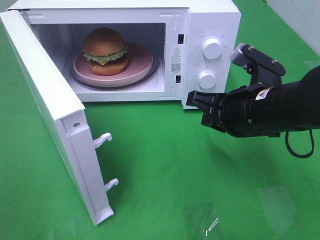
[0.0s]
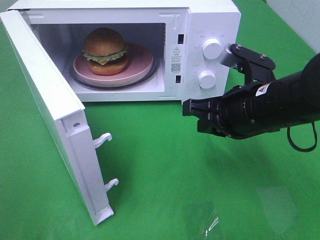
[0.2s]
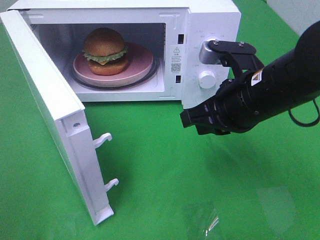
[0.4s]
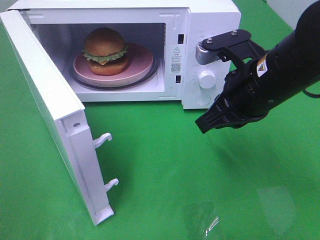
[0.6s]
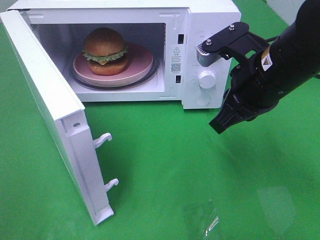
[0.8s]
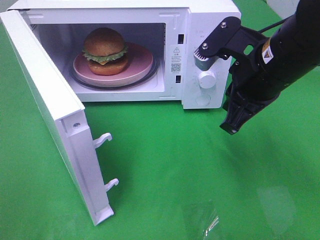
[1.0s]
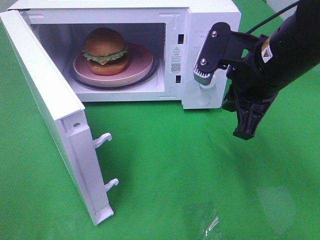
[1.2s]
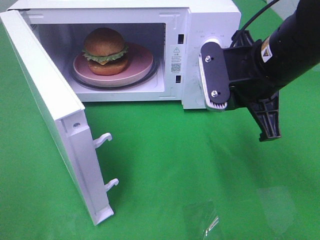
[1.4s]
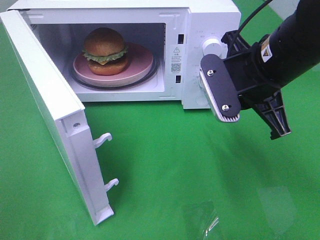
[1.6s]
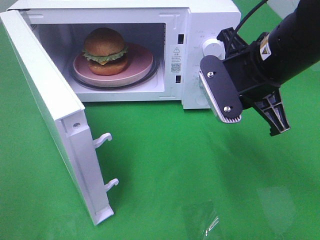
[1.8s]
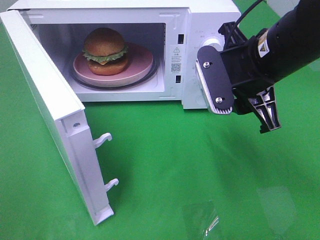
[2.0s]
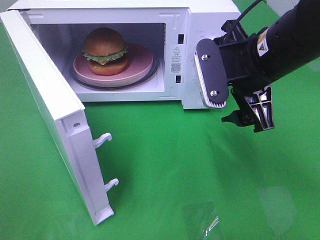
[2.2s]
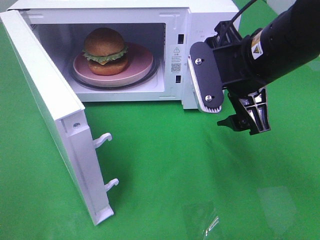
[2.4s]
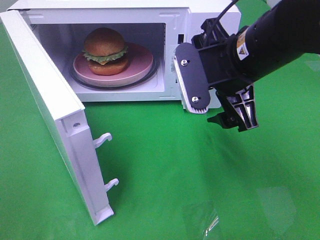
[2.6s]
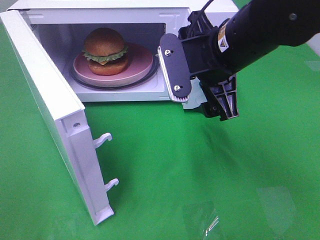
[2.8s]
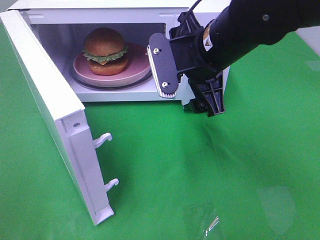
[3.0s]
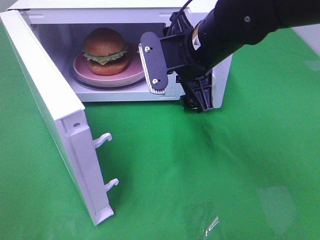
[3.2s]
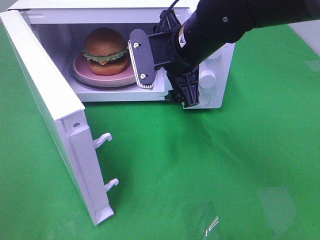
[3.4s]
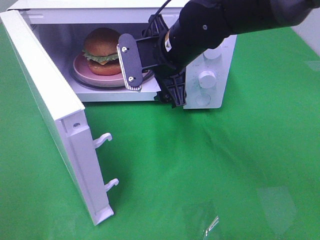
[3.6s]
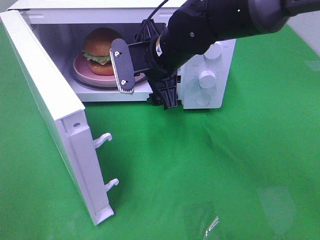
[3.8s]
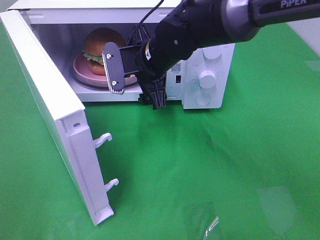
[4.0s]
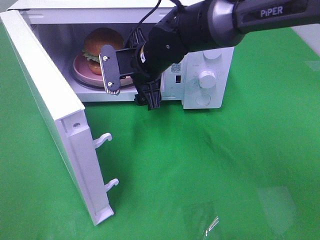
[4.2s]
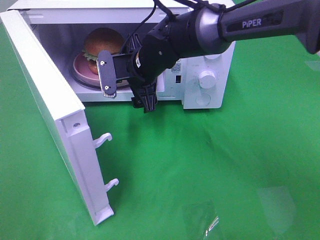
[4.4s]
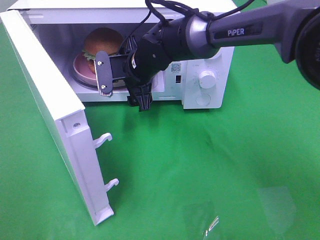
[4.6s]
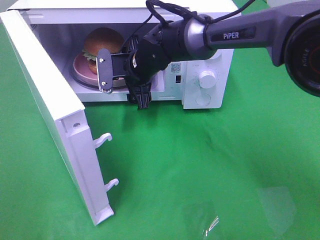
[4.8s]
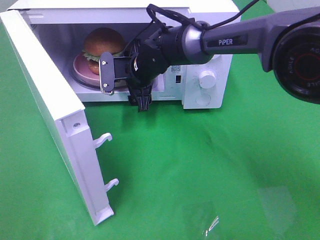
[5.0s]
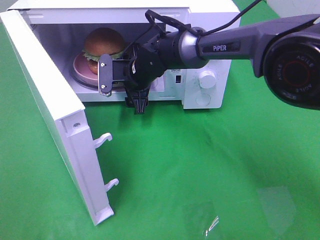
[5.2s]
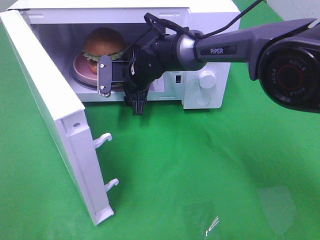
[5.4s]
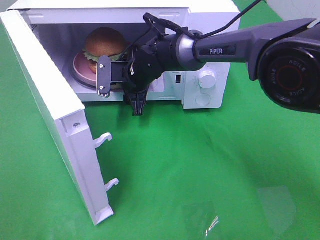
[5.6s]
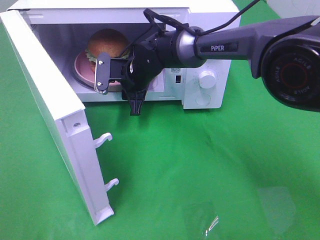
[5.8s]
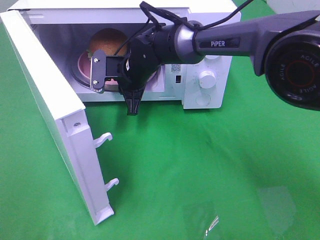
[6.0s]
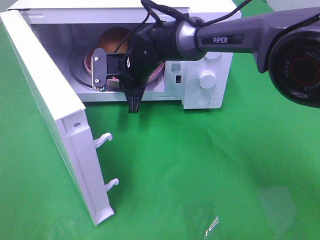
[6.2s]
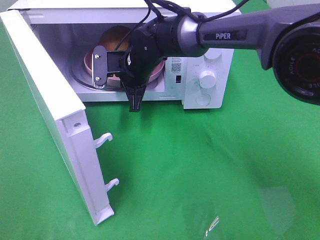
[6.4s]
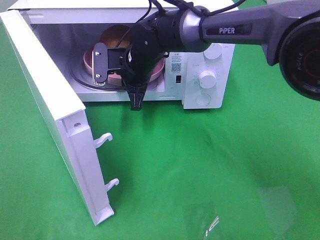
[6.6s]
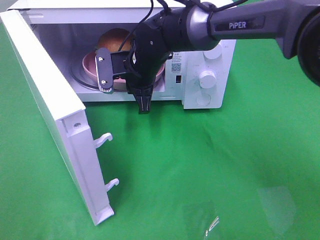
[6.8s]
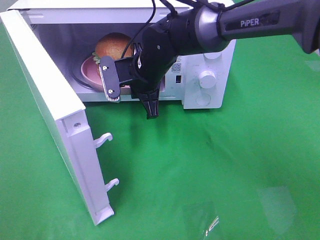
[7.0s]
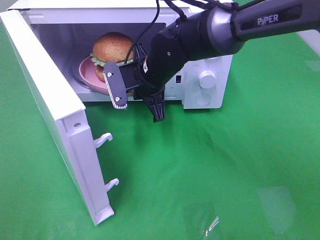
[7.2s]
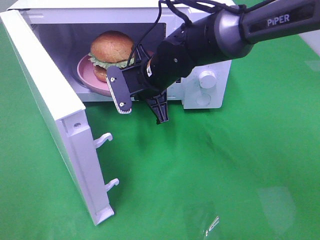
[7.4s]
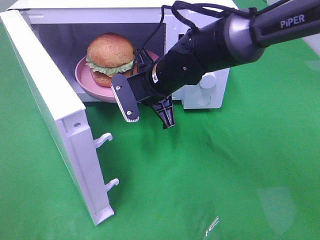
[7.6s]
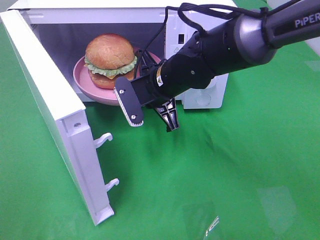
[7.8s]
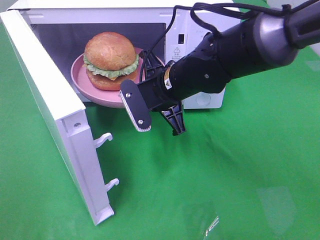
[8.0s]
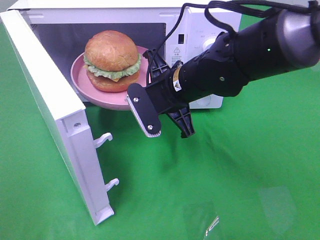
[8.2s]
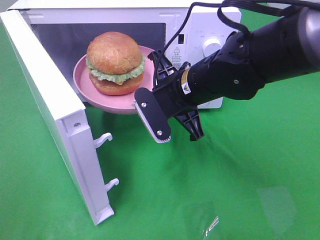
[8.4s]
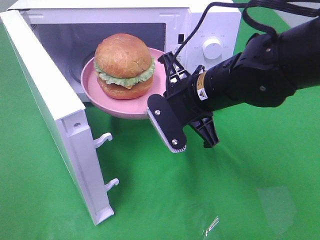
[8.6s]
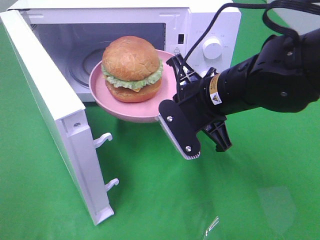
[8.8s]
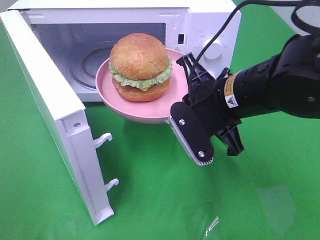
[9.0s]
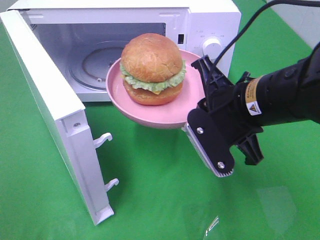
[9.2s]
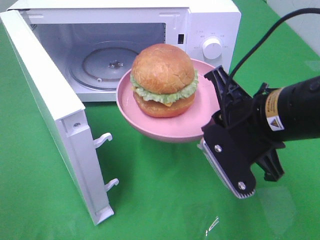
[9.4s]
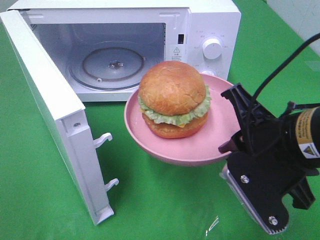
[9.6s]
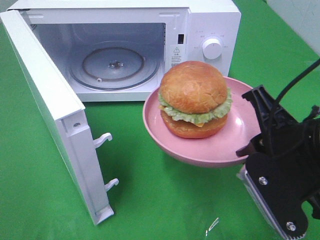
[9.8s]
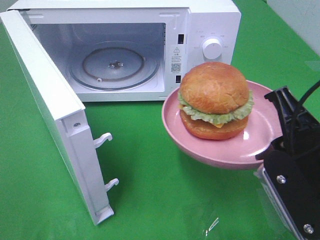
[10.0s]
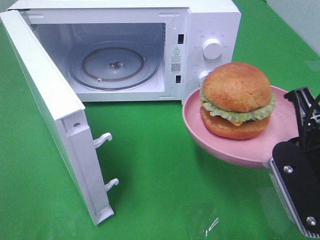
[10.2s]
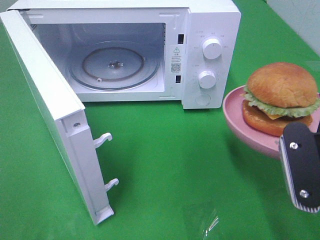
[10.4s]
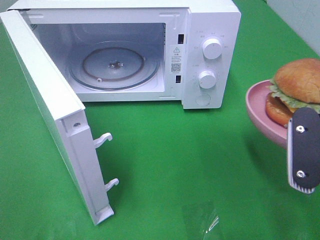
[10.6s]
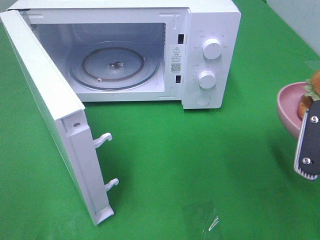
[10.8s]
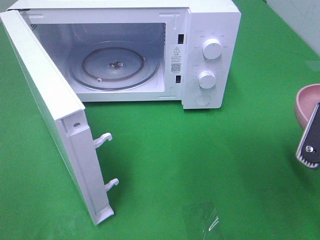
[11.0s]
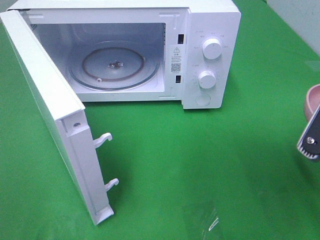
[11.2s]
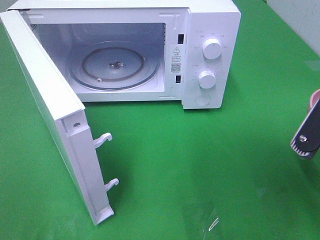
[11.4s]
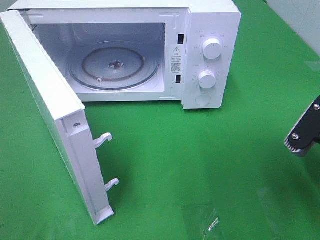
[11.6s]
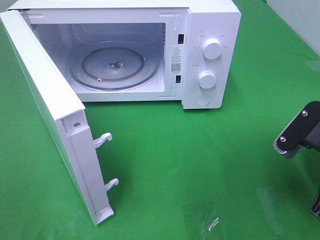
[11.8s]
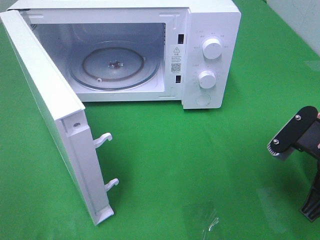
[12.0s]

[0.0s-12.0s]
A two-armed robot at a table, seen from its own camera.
Task of the whole recording: Heat the burger.
Step, 0.0s to 6.2s: Right hand: grab the plate with the hamburger.
0.0s to 1.6s: The right gripper moves upward, about 5 cm.
1.6s to 3.0s: The right gripper heads to the left, covering some 5 cm, and opens up.
3.0s to 4.4s: The right gripper shifts some 15 cm forward, to the left and downward.
4.4s to 6.0s: The right gripper closes.
6.0s to 7.6s: The right gripper is displaced backward and to the right by roughly 10 cm.
7.6s to 9.0s: The right gripper heads backward and to the right, covering roughly 15 cm.
9.0s to 10.4s: The right gripper moves backward and to the right, roughly 15 cm.
10.4s to 12.0s: The right gripper travels downward by roughly 5 cm.

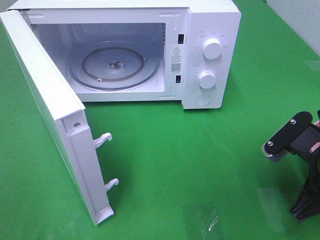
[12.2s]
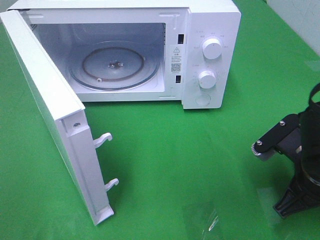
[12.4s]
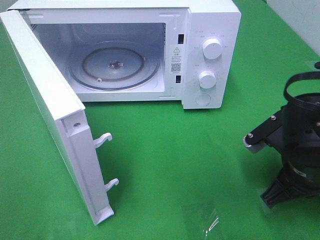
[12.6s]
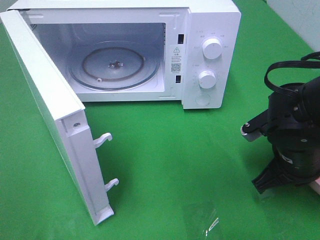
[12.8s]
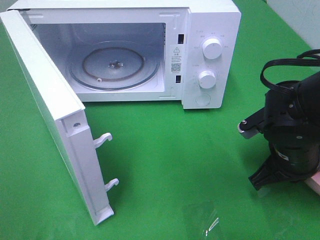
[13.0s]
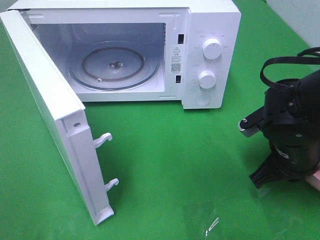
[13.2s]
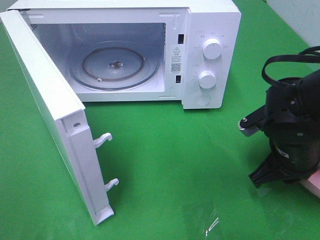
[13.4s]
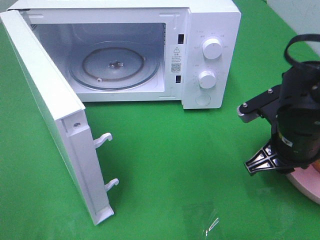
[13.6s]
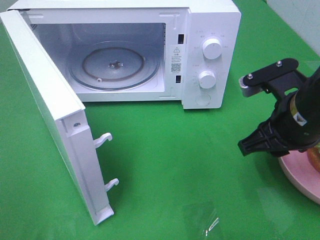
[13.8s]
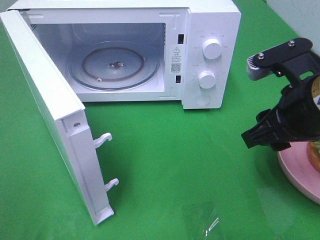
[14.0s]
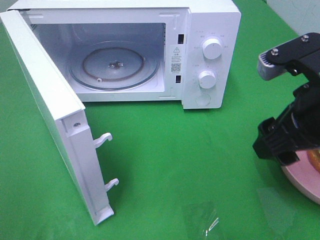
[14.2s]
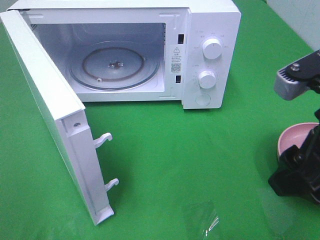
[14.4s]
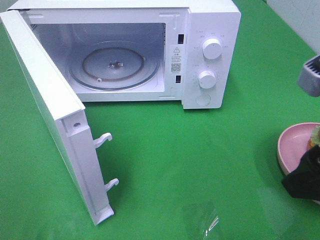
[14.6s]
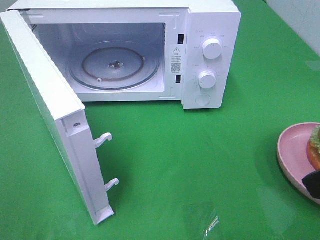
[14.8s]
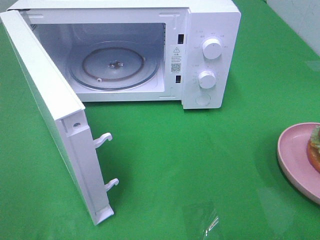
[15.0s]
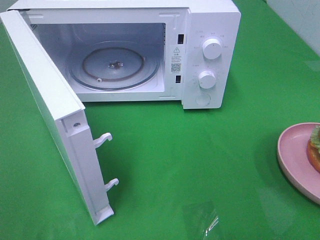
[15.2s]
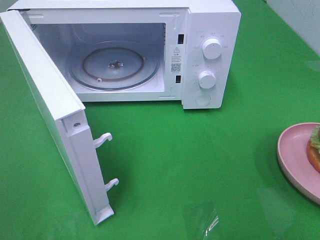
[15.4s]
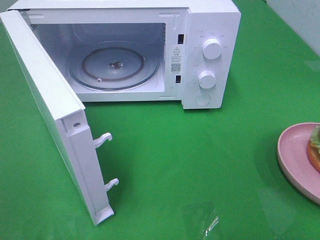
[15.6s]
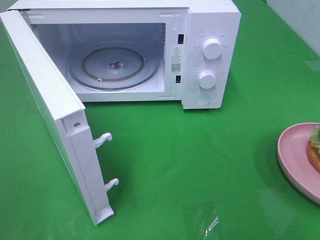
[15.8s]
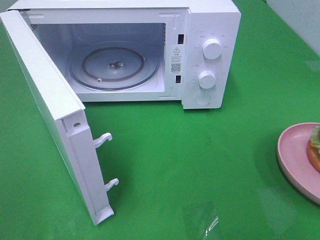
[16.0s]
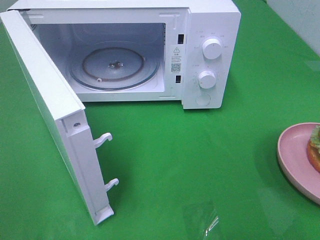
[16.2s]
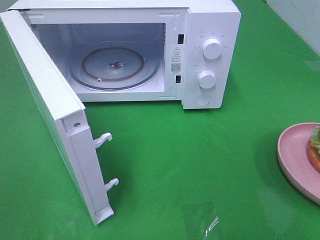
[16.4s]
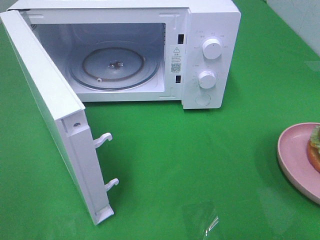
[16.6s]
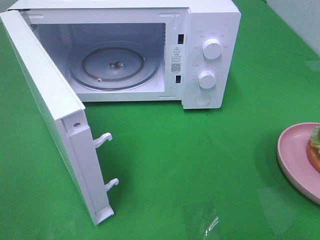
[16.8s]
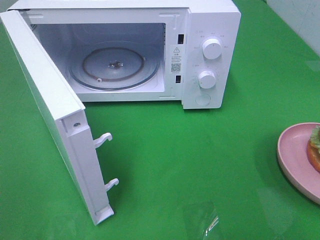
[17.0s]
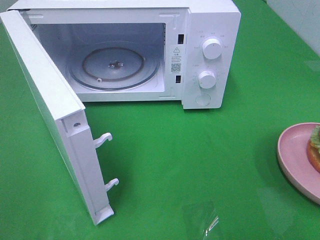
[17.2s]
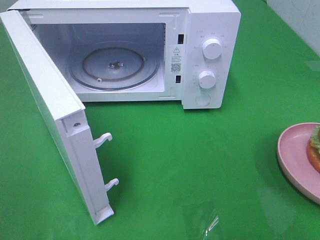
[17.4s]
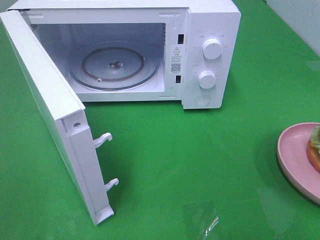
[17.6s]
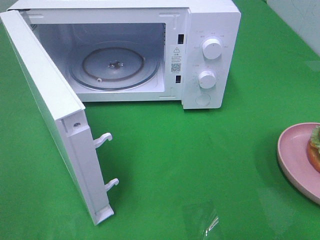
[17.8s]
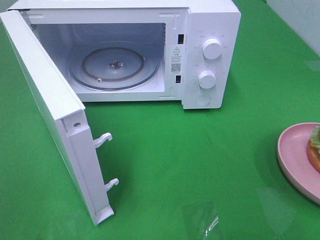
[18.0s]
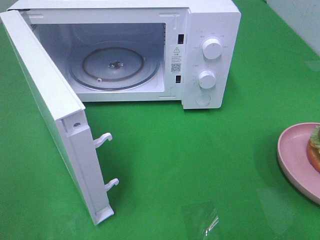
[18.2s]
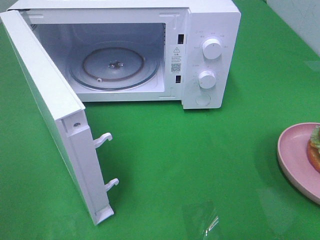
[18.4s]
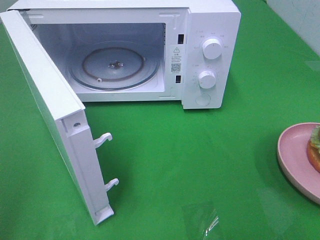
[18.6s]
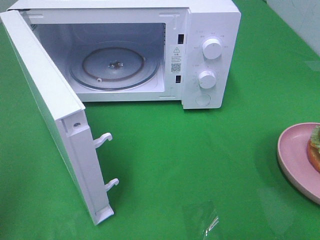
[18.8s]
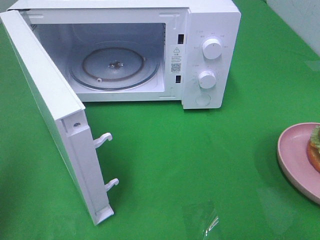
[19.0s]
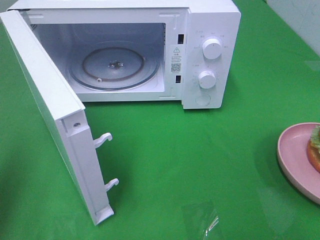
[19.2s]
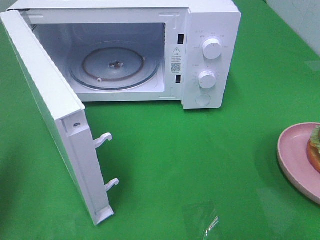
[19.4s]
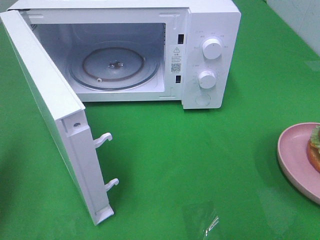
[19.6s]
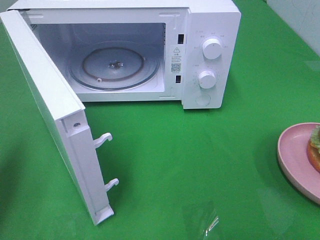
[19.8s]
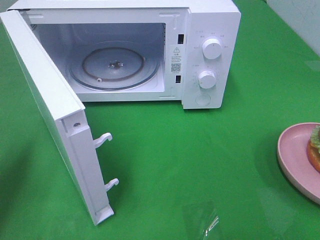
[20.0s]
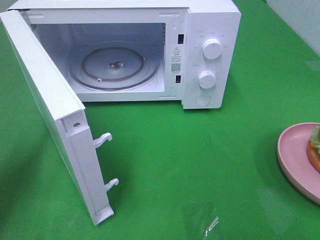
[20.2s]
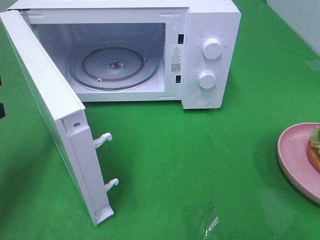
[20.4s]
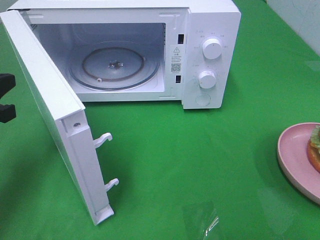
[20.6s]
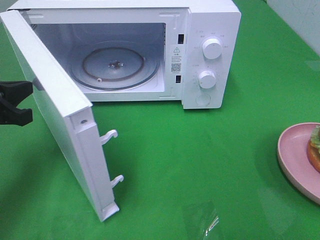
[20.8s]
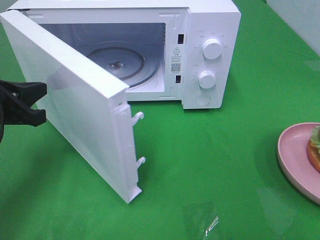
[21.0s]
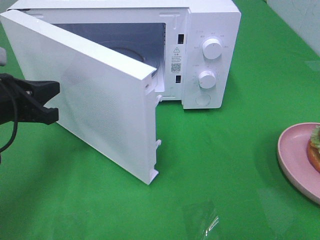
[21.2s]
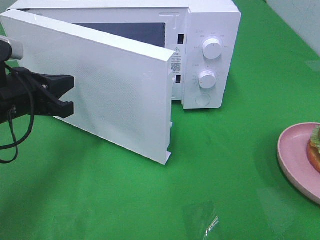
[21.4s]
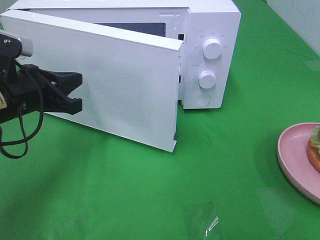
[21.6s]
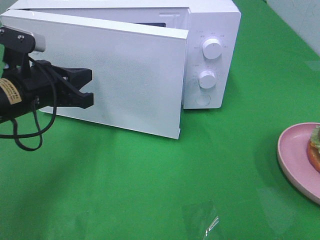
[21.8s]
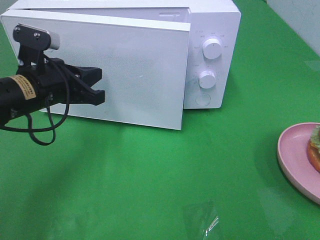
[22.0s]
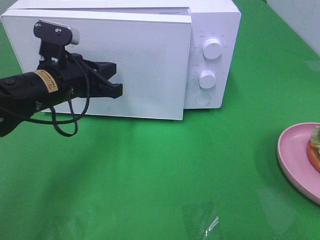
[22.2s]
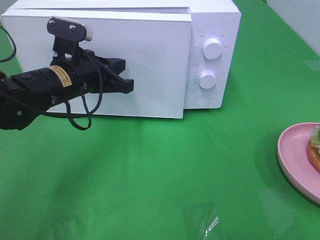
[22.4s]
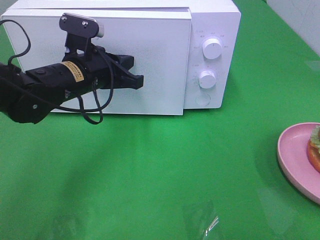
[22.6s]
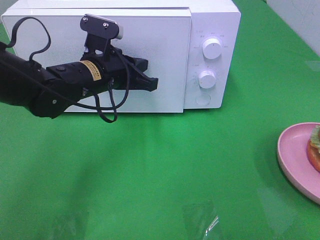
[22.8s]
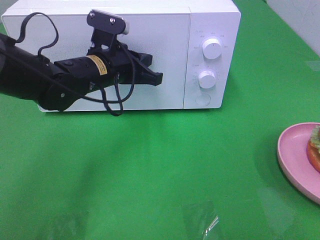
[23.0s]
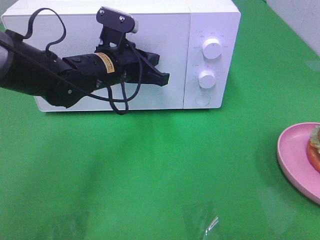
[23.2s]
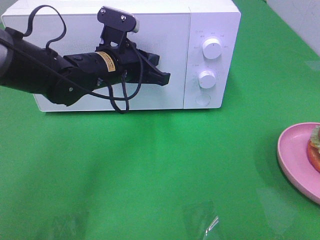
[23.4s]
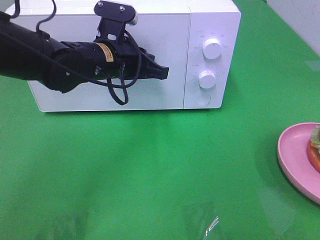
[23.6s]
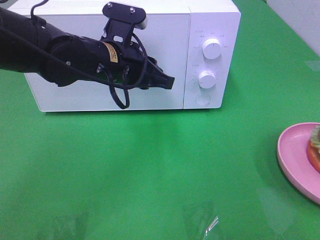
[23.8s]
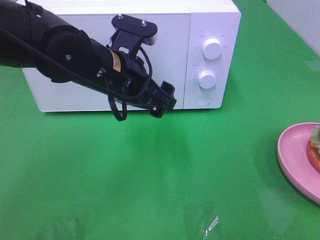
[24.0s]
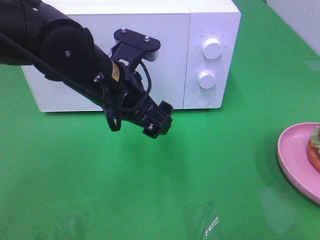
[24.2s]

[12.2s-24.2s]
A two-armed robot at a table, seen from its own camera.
Task of the whole recording: Heat the burger.
Step, 13.8s to 23.8s: Left hand: close the microwave door.
12.2s to 13.8s: The right gripper travels upward by some 5 cm, and opens up.
13.8s to 15.2s: The right gripper heads backward, upward and to the right, covering about 20 cm, and opens its fingers.
16.6s to 18.2s: The two grippers keep their place.
18.2s to 19.8s: The left gripper goes about 20 cm forward, and closes up.
19.8s to 21.2s: The left gripper heads to the right, forward and downward, covering approximately 15 cm.
21.2s to 22.6s: The left gripper goes about 15 cm to the right and forward.
22.6s to 24.2s: The left gripper is displaced backward and to the right by roughly 10 cm, and opens its fingers.
